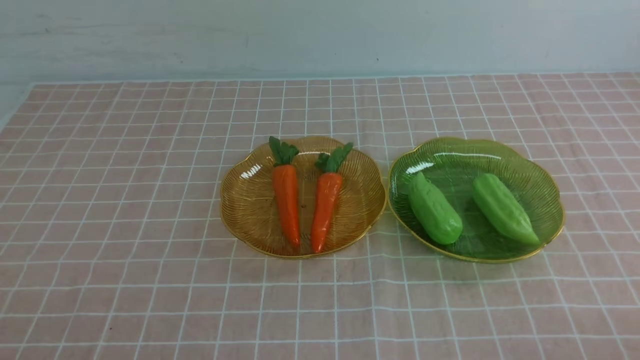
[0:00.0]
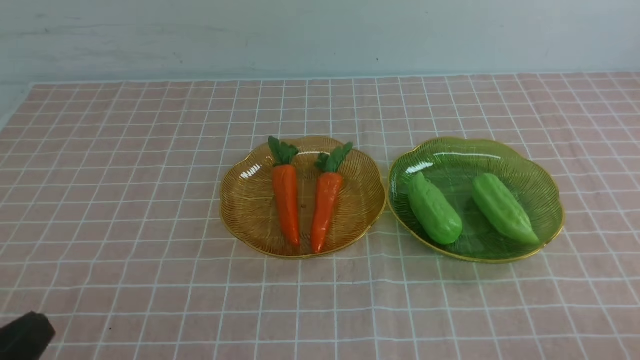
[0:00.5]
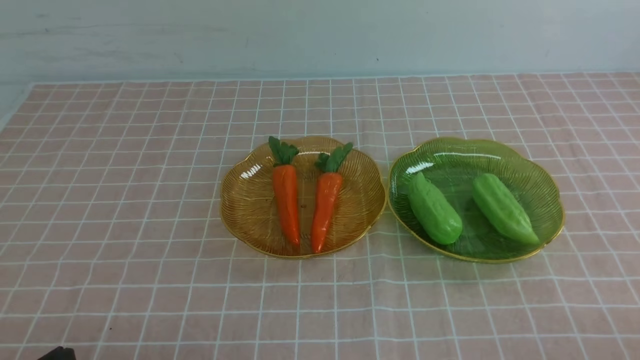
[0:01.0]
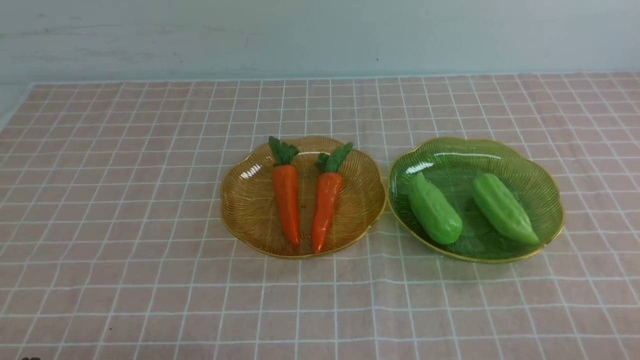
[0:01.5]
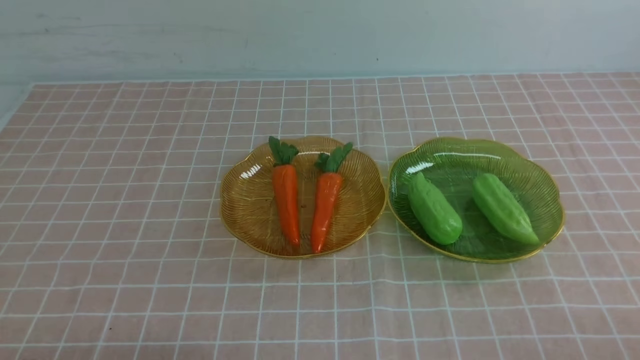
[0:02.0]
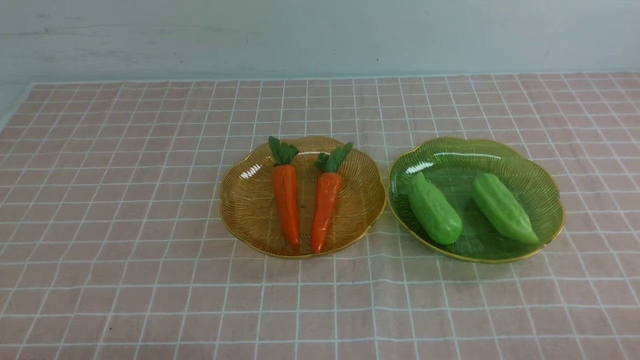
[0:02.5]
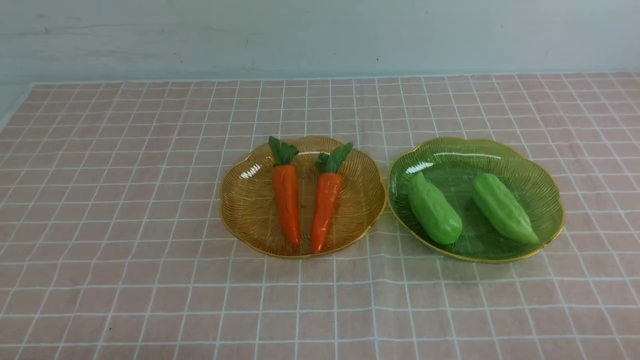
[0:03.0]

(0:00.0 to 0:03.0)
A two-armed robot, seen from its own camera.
0:01.5 - 0:03.0: Both grippers stay put.
